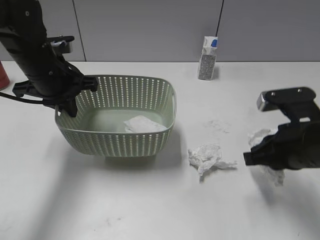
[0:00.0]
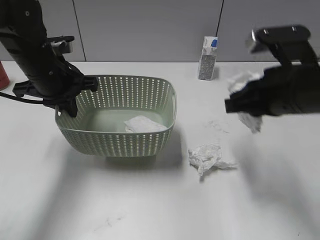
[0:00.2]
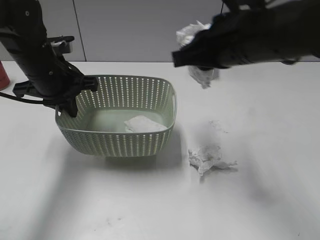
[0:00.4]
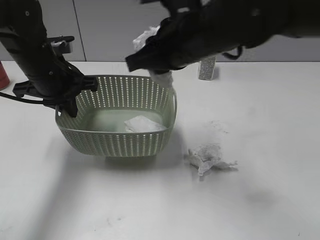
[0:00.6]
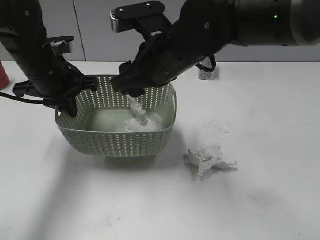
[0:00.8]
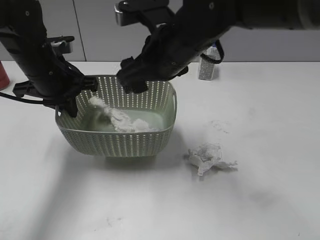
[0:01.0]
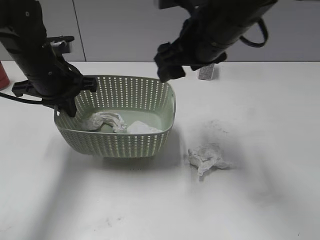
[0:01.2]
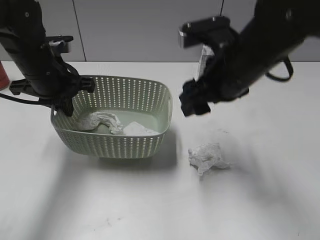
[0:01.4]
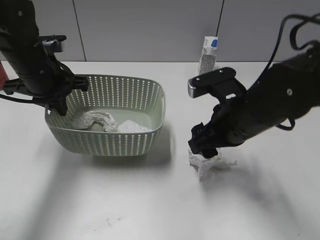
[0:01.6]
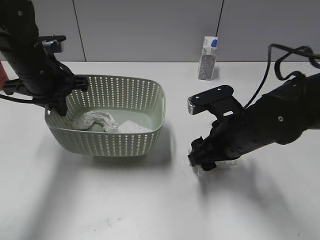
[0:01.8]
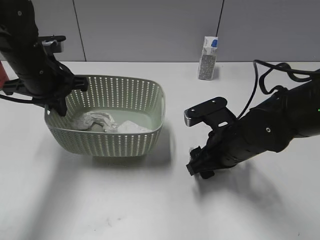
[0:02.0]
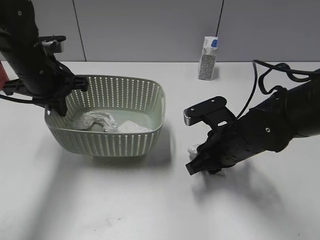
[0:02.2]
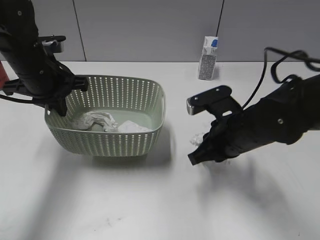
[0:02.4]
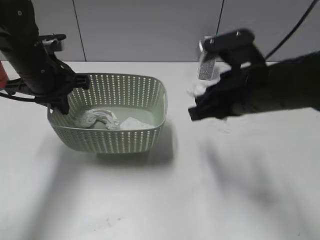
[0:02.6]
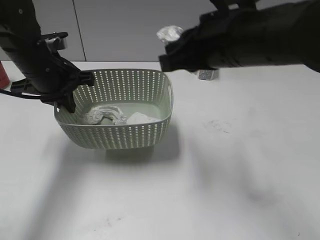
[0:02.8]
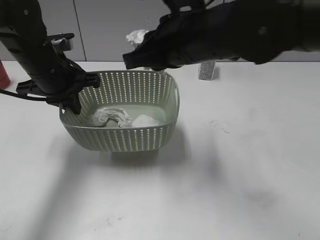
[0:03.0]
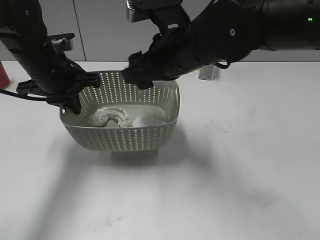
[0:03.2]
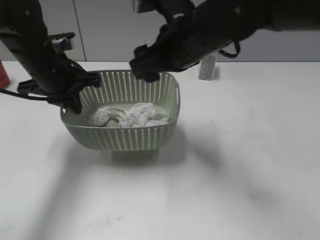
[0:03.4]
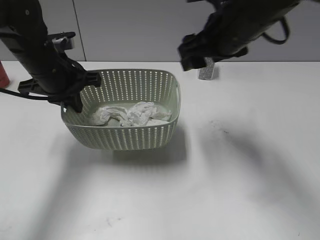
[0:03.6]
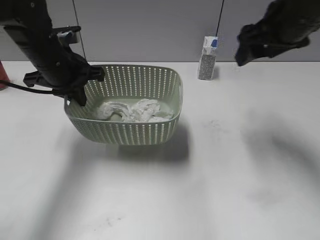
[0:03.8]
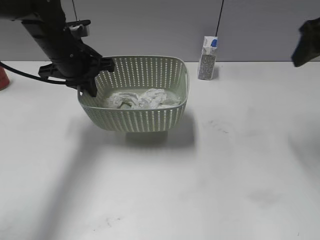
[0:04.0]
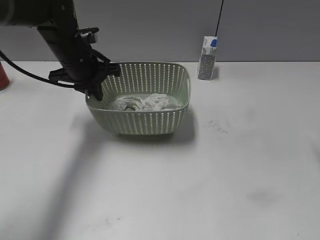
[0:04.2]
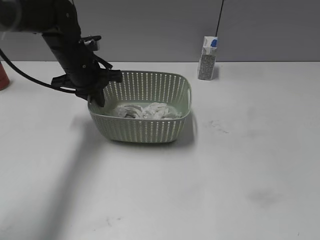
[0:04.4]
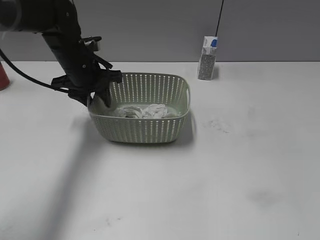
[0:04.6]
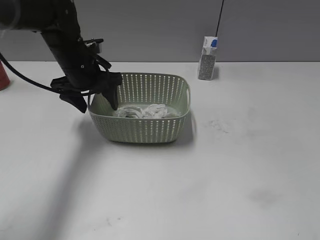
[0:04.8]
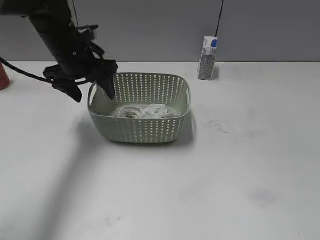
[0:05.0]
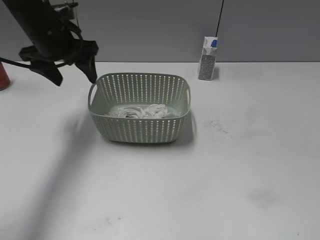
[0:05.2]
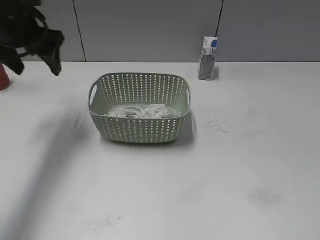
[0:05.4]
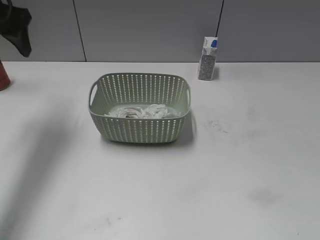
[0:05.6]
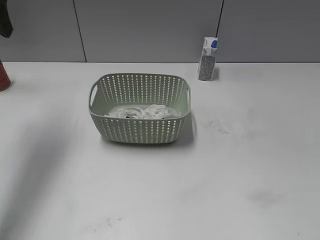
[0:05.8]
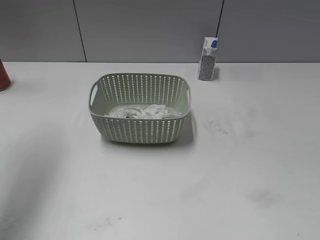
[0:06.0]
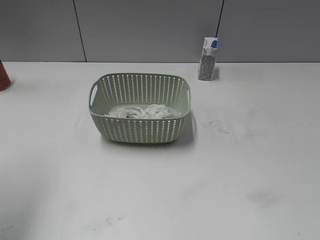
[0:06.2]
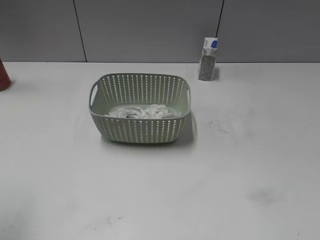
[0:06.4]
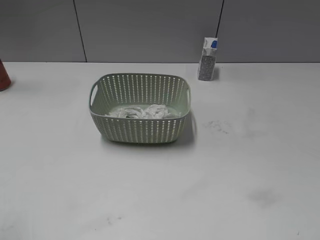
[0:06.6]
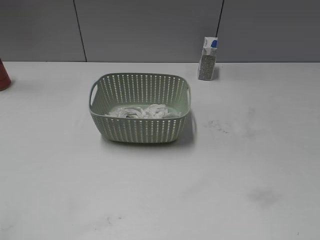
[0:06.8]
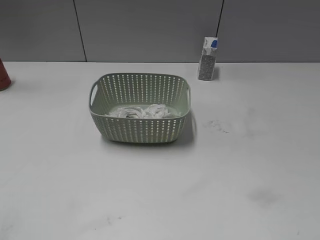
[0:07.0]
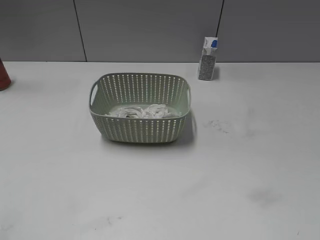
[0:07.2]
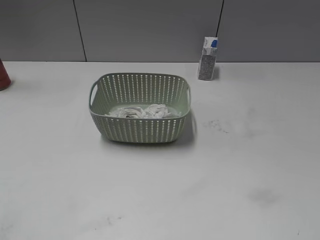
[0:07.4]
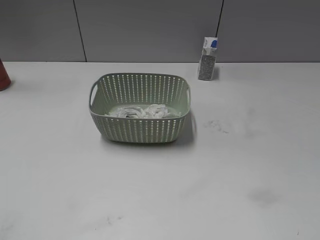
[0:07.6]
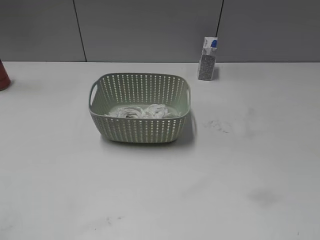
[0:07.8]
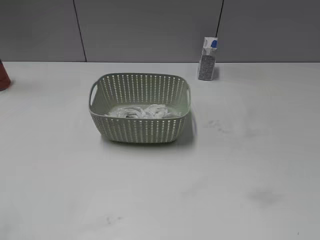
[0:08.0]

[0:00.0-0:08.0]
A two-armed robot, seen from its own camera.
Step, 0:00.0 to 0:01.2: Place the waste paper in the basket with right gripper.
Step, 0:01.4 to 0:02.4: Grasp the waste paper with right gripper.
Step, 0:02.6 to 0:03.4: Place the waste paper in the basket with right gripper.
Step, 0:03.6 to 0:04.8: Place the basket on the table with left gripper.
0:00.0 to 0:01.6: The right gripper is displaced to the left and forward by some 10 cm, and opens.
0:01.6 to 0:03.2: The right gripper shifts roughly 10 cm to the left and upward, and closes, then opens again.
0:03.2 to 0:04.8: The left gripper goes approximately 5 cm forward, and opens, while the right gripper travels to the right and backward by approximately 30 cm.
0:04.8 to 0:06.4: The left gripper is displaced backward, upward and to the left by some 35 cm. Meanwhile the right gripper travels backward by some 15 cm.

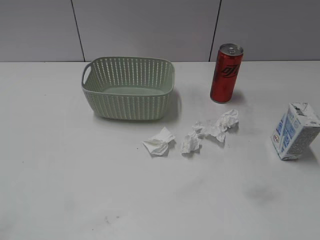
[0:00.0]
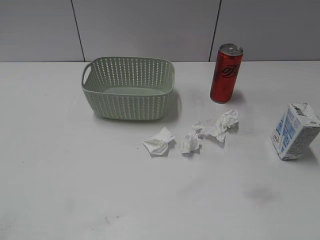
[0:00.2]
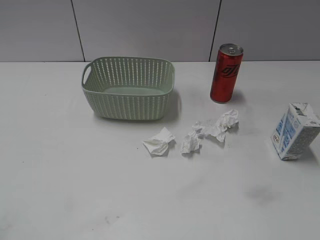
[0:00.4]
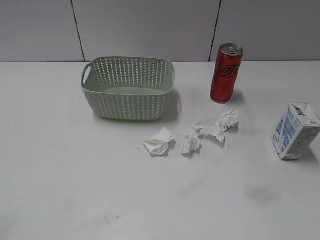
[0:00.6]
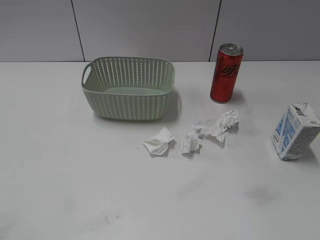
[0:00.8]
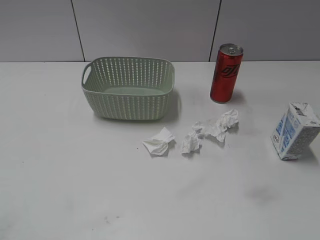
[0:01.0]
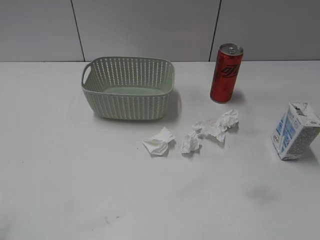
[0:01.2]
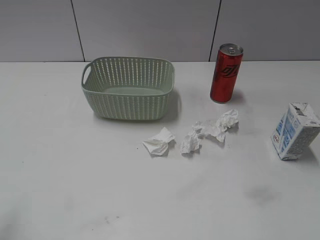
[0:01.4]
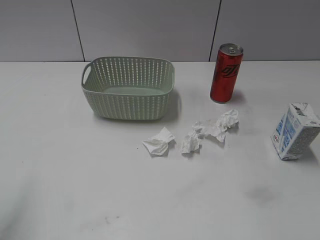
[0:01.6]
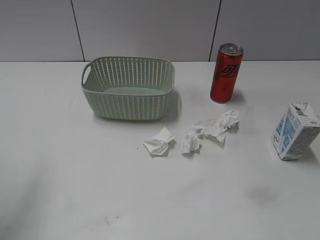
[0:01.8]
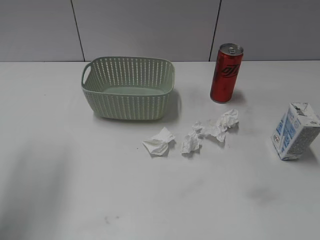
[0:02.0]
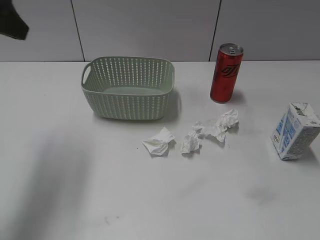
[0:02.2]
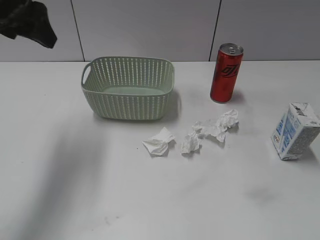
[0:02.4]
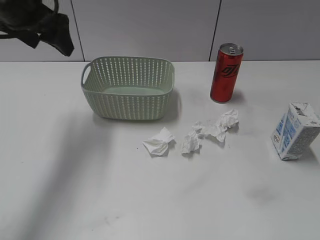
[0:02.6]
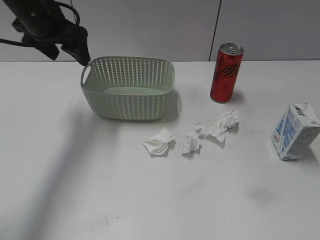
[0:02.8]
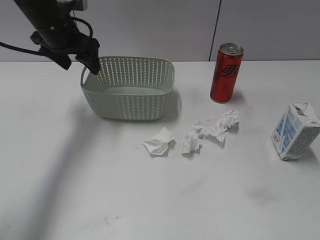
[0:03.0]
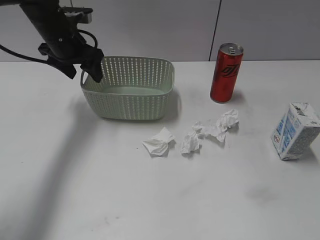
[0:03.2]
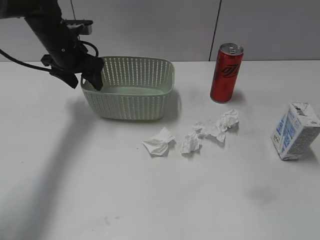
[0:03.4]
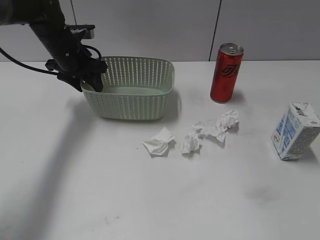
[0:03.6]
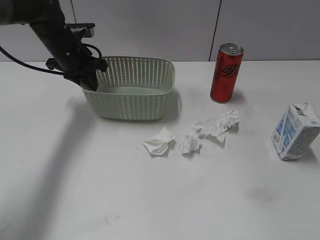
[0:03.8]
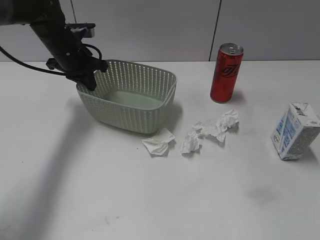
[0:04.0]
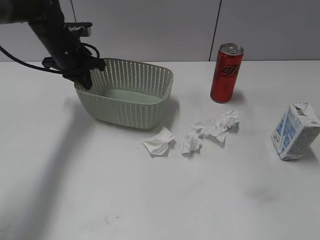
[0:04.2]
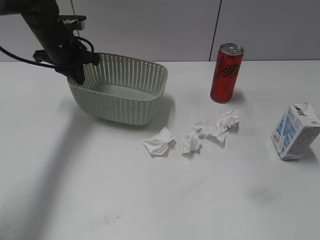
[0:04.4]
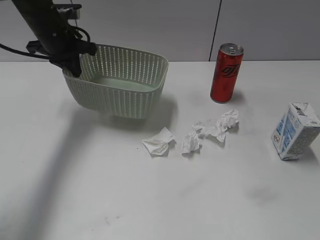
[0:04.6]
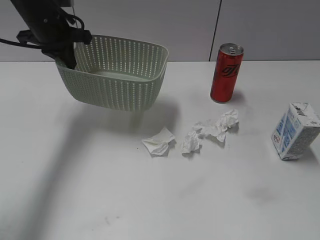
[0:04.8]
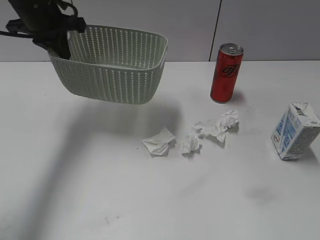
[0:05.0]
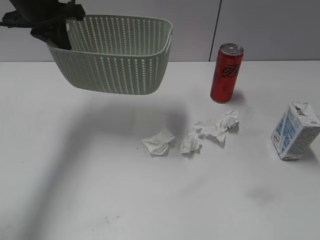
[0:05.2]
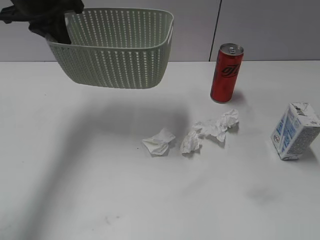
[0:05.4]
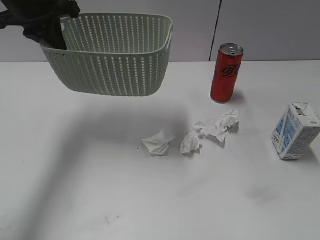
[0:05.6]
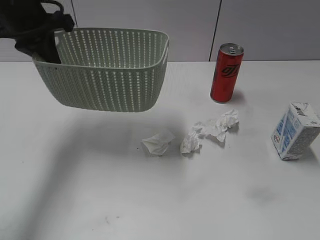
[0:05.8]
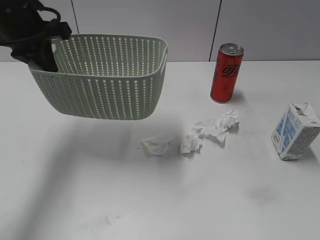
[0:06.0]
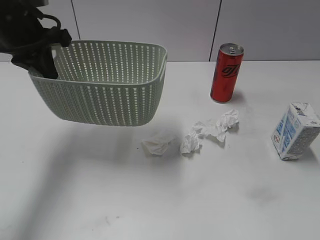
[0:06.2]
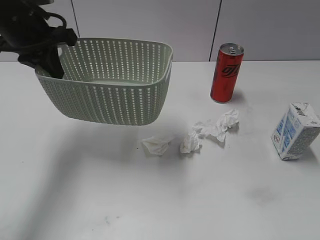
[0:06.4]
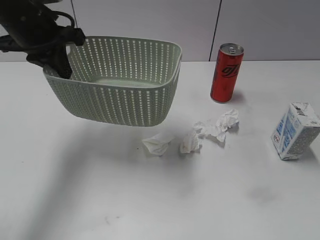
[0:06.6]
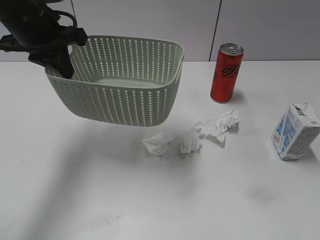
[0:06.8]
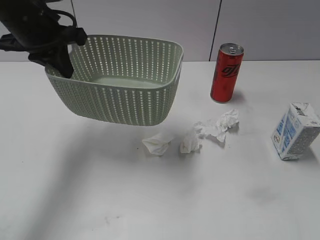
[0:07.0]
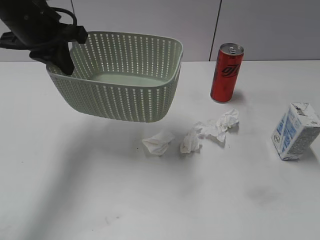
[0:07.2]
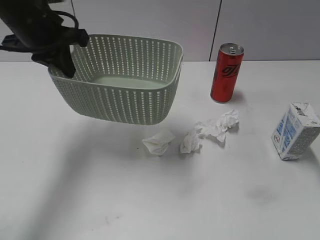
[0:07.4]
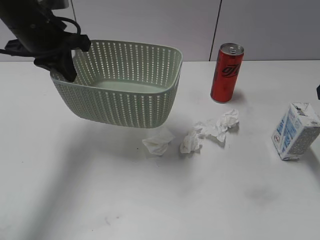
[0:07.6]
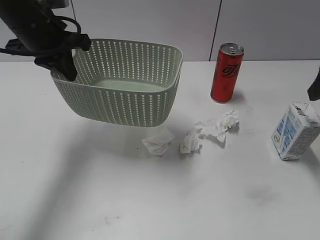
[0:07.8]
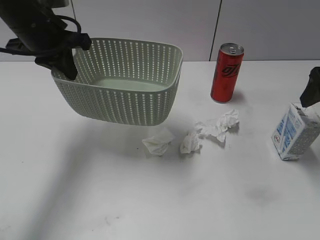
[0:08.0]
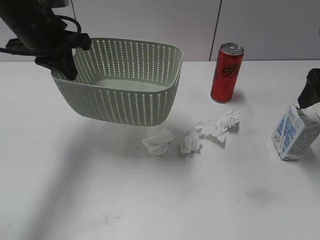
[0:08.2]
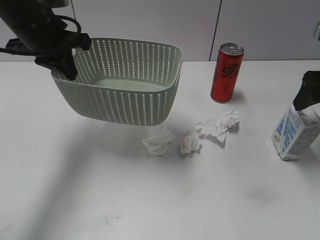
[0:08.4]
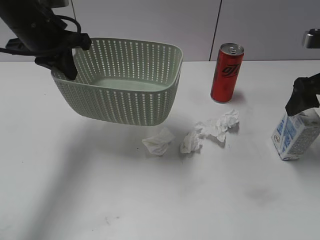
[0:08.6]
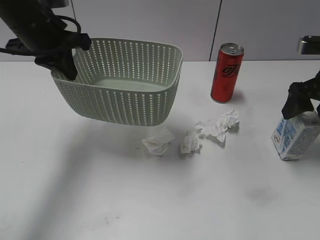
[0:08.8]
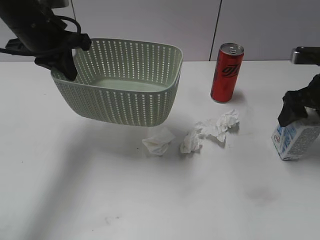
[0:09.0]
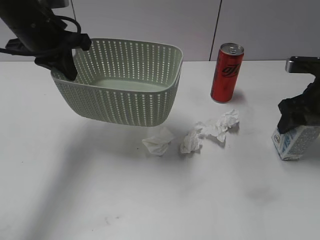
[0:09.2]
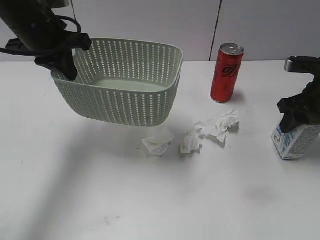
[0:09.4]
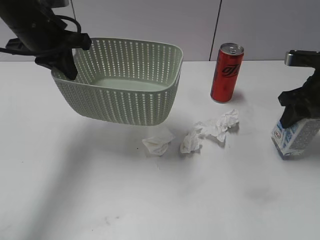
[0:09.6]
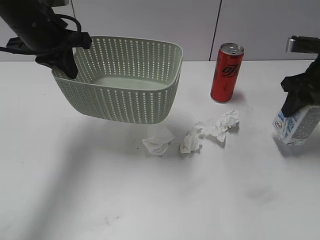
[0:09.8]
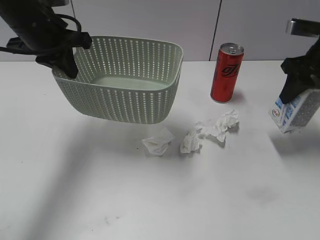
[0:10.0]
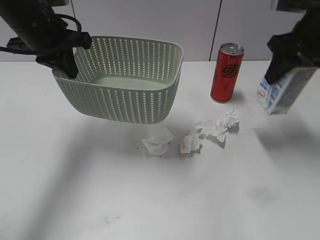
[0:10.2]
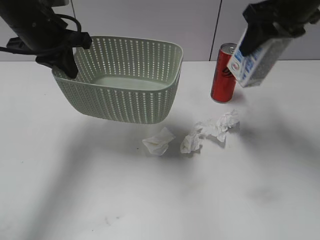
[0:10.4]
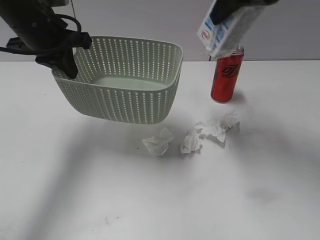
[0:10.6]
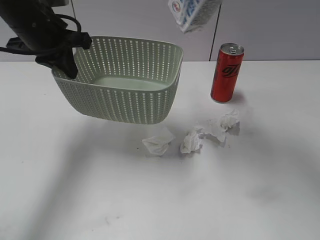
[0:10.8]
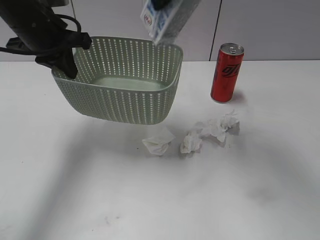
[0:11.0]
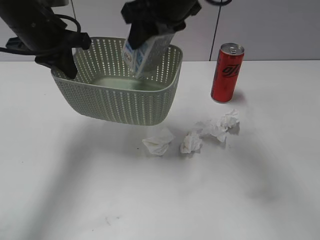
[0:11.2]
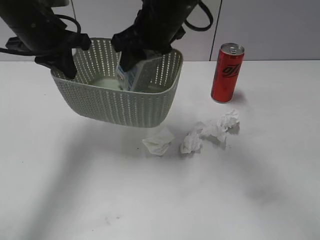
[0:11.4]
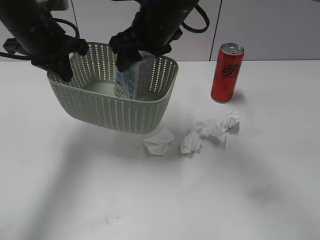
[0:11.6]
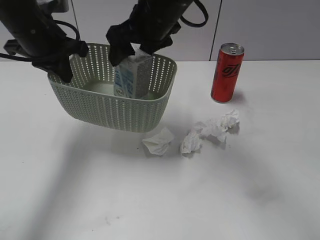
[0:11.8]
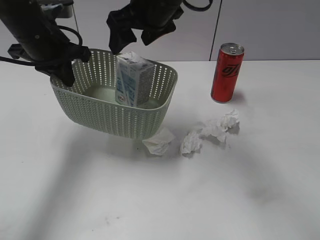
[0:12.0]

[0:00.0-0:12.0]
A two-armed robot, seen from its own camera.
Step, 0:02.2 to 0:04.0: Grasp the basket with left gripper.
Step, 0:04.2 to 0:06.6: Lift the basket with left gripper.
Step, 0:06.8 to 0:09.2: Grasp the milk with right gripper.
Step, 0:09.4 to 0:11.8: Place the milk in the basket with right gripper.
0:01.6 to 0:03.0: The left gripper goes about 35 cm forward, to the right and downward.
0:03.0 to 0:04.4: The left gripper shifts by approximately 5 cm, and closes its fingers.
0:04.4 to 0:06.0: The left gripper shifts some 15 cm backward and upward.
0:06.0 to 0:07.6: The right gripper travels forward by some 25 cm.
0:07.6 to 0:09.0: The right gripper moves downward and forward, some 10 cm.
0:09.0 to 0:10.4: The right gripper travels upward and to the left by roughly 20 cm, and closes its fingers.
0:10.4 to 0:12.0: The right gripper travels to the left by some 20 cm, and opens up.

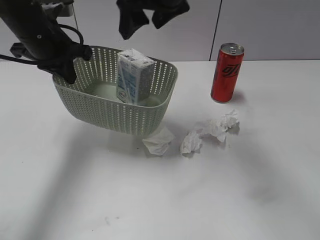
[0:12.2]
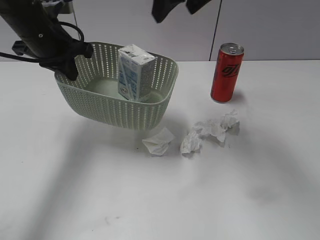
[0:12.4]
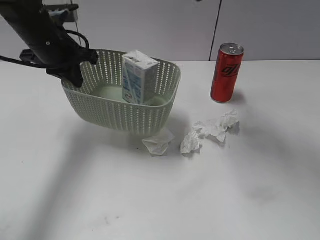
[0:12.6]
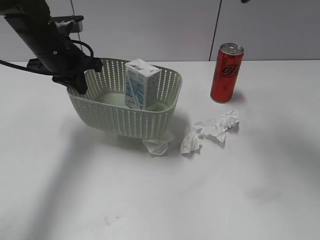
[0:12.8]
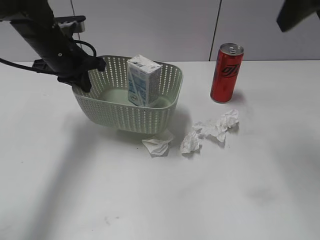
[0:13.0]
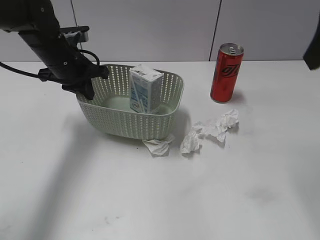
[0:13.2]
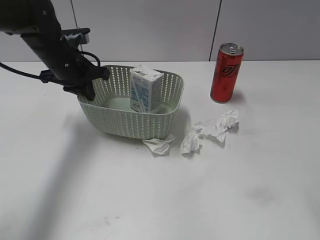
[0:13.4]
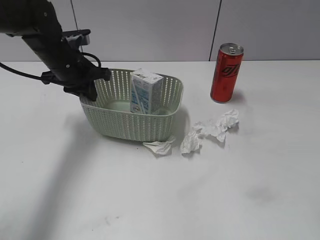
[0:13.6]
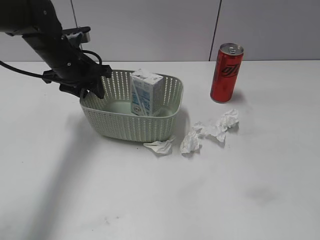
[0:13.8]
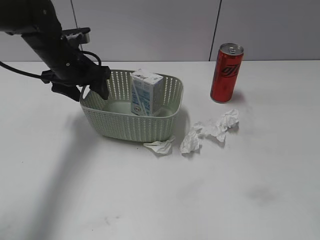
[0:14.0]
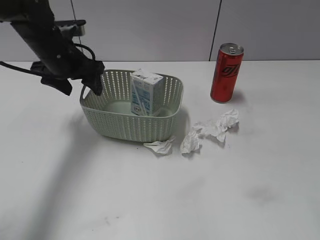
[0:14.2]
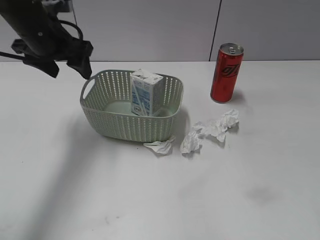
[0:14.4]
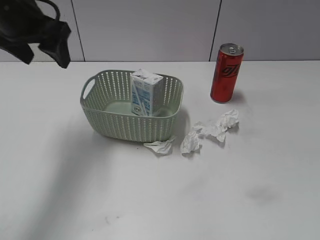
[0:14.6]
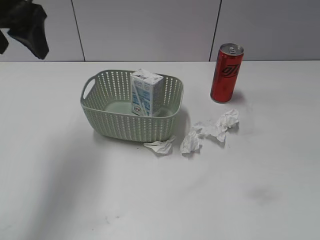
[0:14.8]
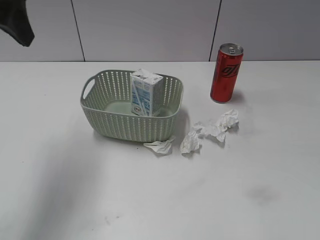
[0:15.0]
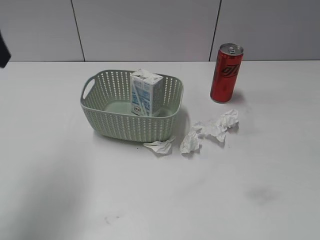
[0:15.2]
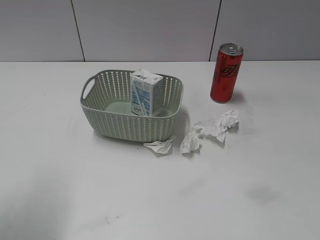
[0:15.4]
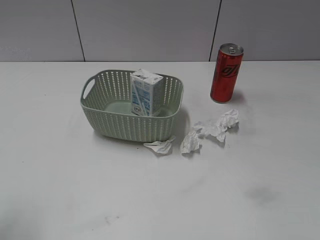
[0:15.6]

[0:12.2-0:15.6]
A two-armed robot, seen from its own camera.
Step, 0:12.2 to 0:14.4: Place the basket on the table with left gripper.
0:12.2 to 0:13.8: The left gripper moves downward, about 5 cm, and opens up; the right gripper moves to the right and backward, some 30 cm.
0:13.8 to 0:15.6: The right gripper goes roughly 15 cm backward and downward. Meanwhile the left gripper travels backward and upward by approximately 30 cm.
